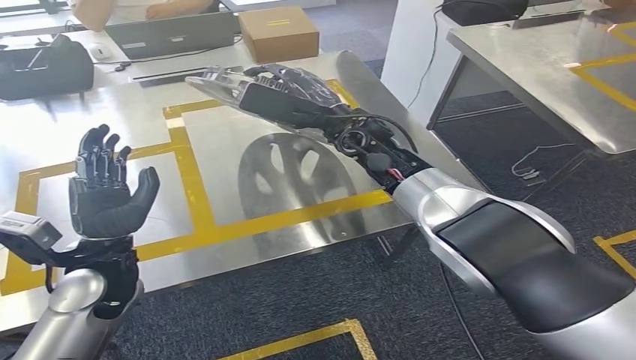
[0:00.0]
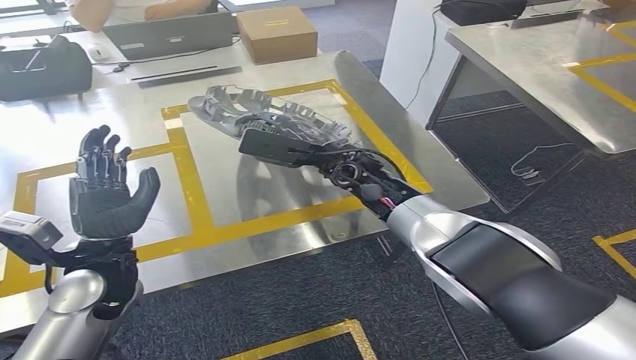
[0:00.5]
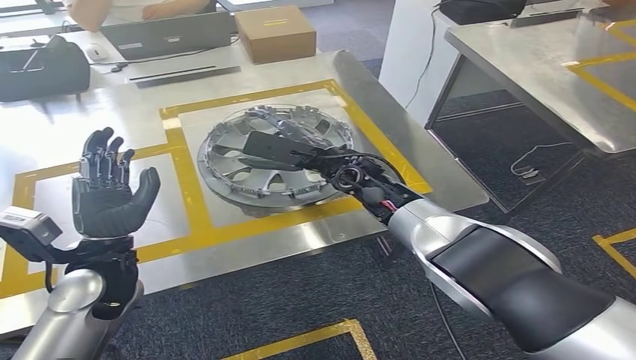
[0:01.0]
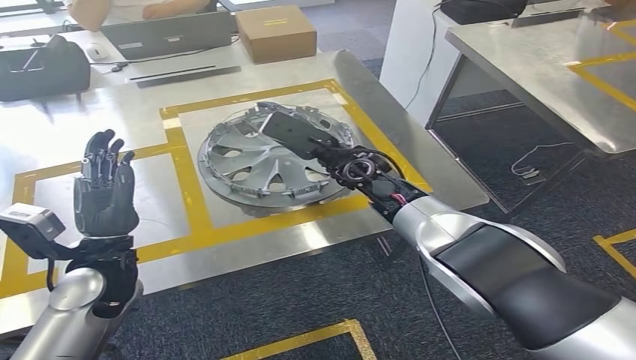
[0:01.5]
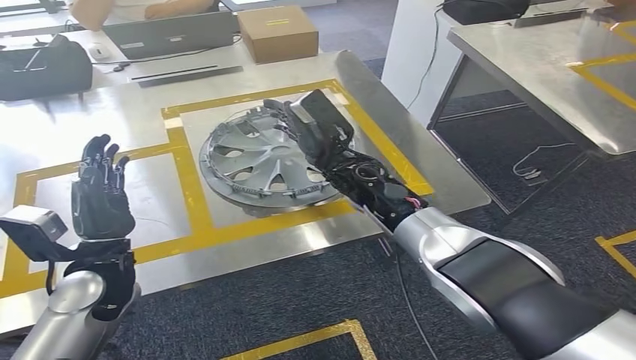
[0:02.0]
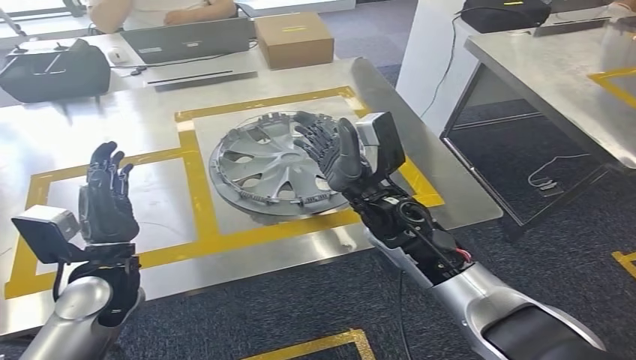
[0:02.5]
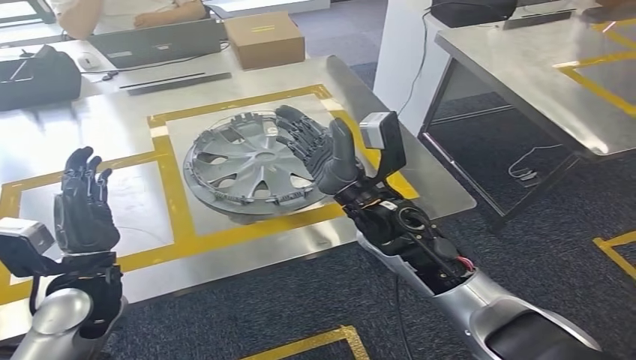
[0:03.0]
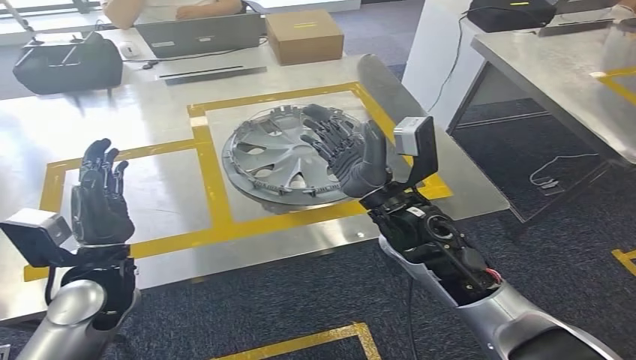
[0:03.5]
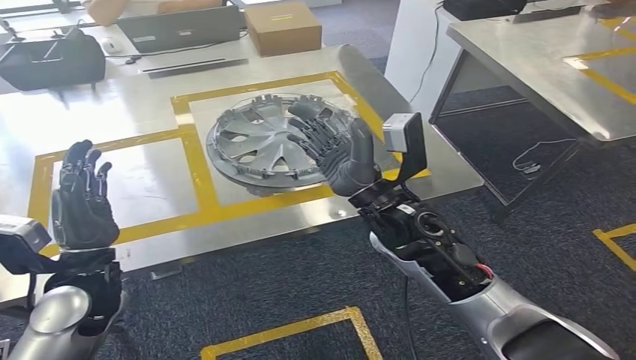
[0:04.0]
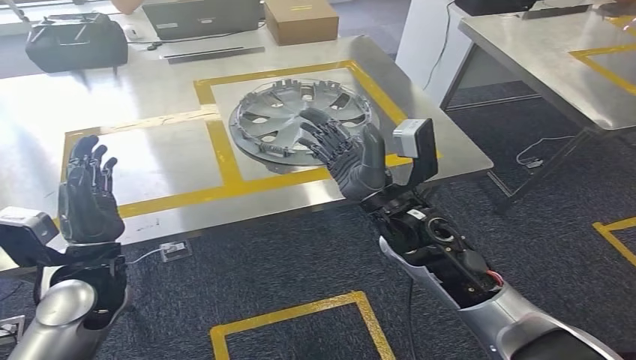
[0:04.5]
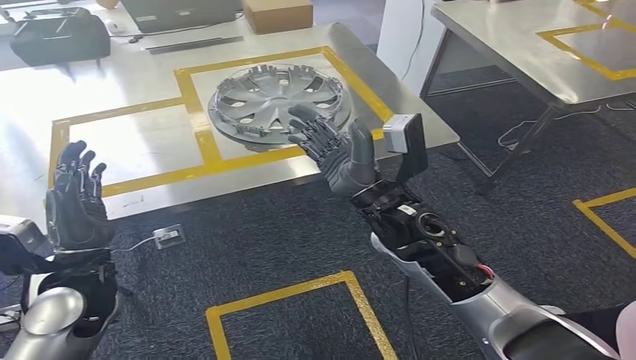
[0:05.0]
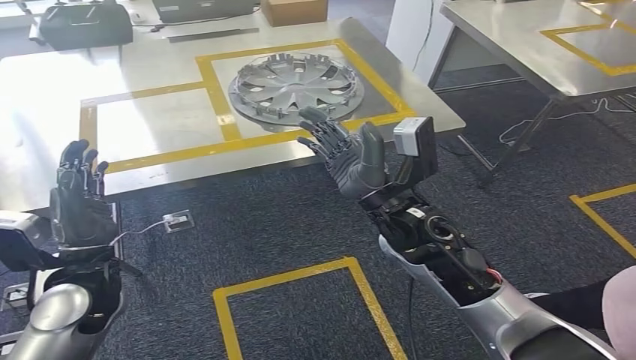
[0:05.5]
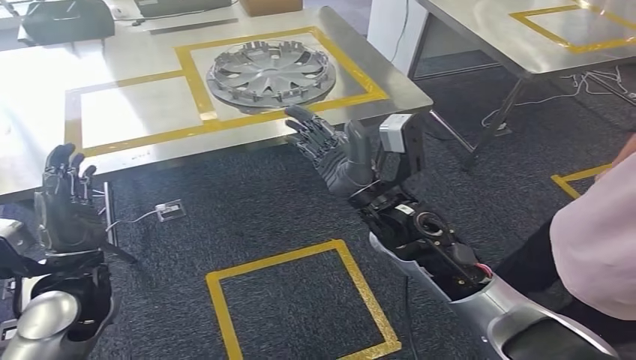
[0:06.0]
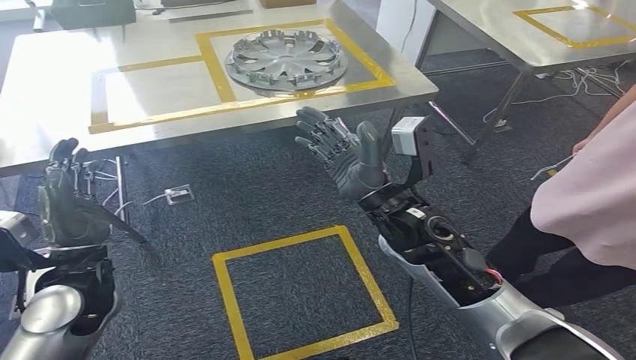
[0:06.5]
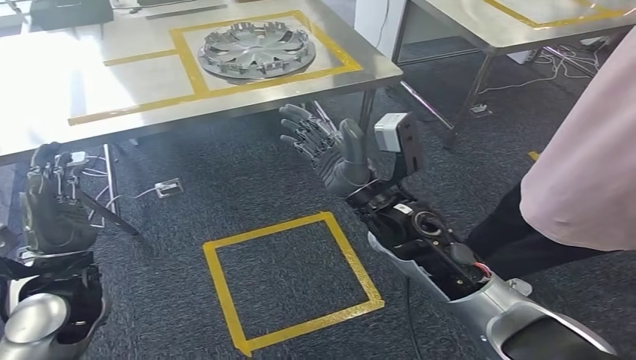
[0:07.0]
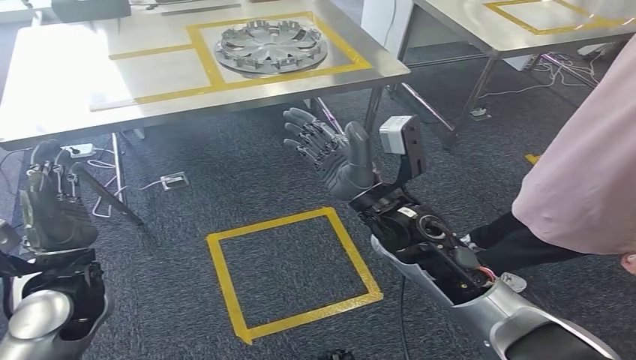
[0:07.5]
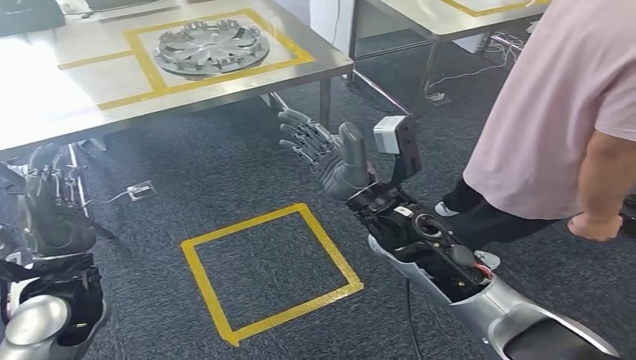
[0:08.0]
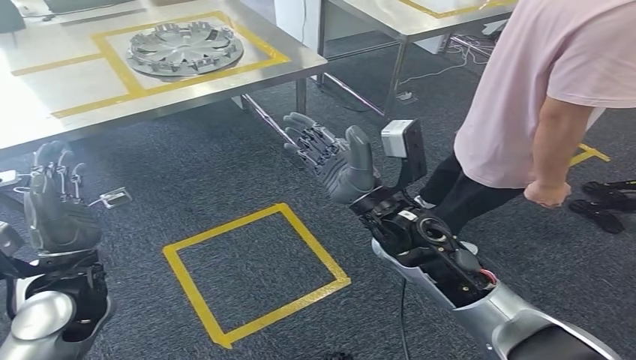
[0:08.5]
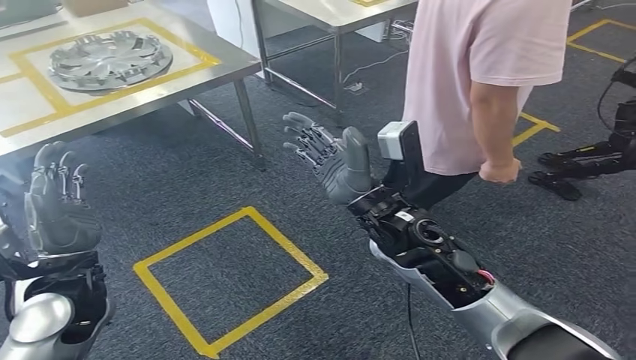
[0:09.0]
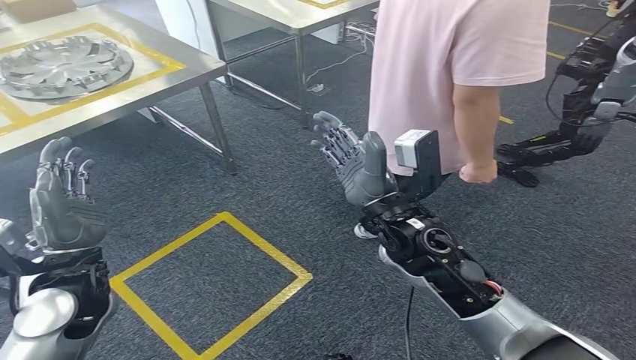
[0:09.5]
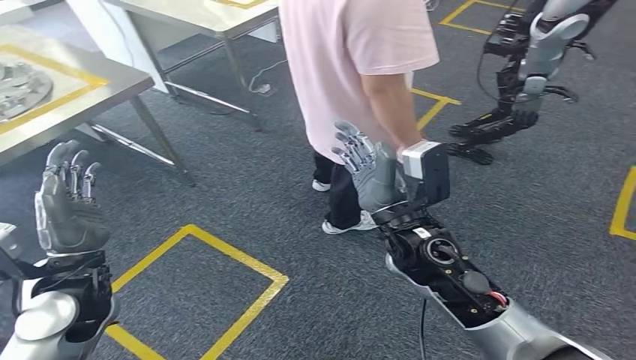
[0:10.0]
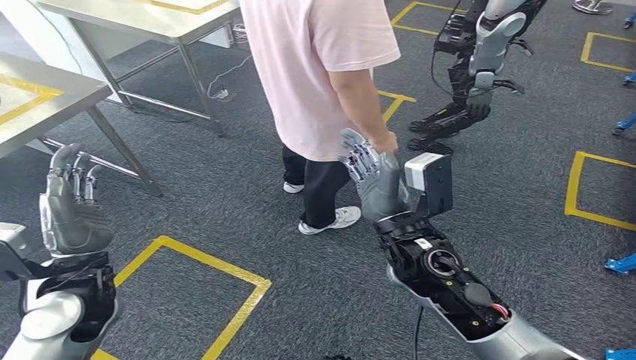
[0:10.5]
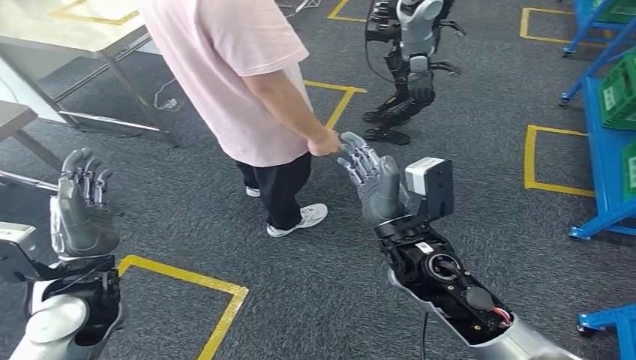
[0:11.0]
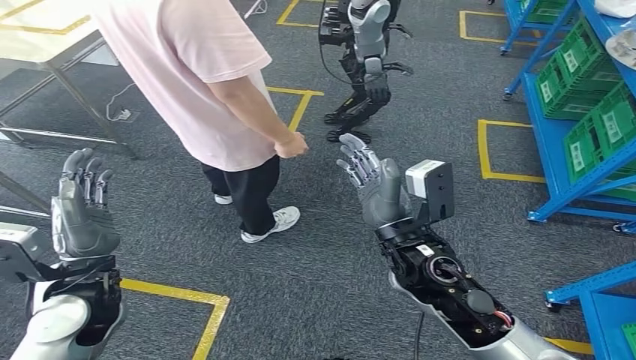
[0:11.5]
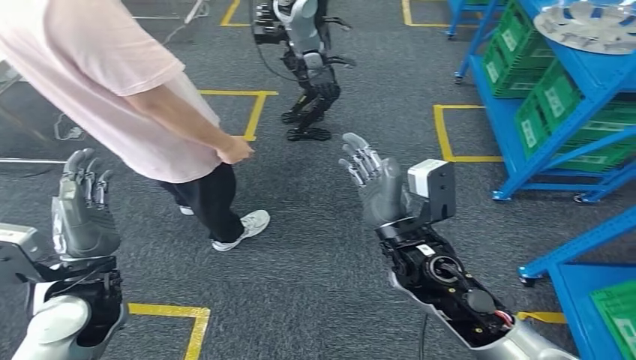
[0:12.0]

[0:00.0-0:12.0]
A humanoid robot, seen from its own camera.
Step, 0:00.0 to 0:02.0: Insert the small component into the corresponding slot on the workbench.

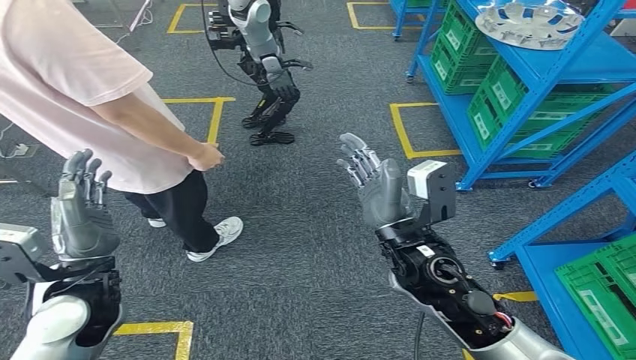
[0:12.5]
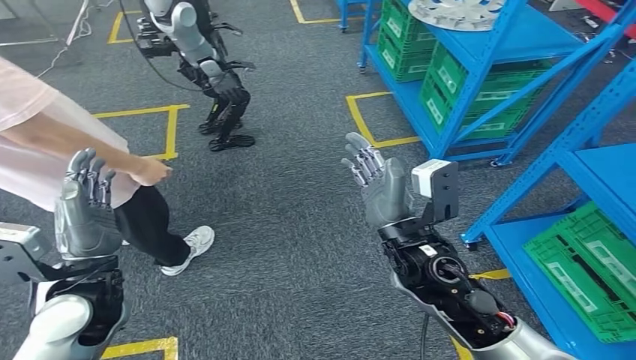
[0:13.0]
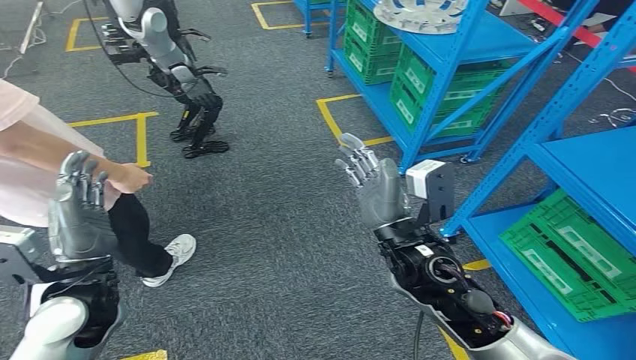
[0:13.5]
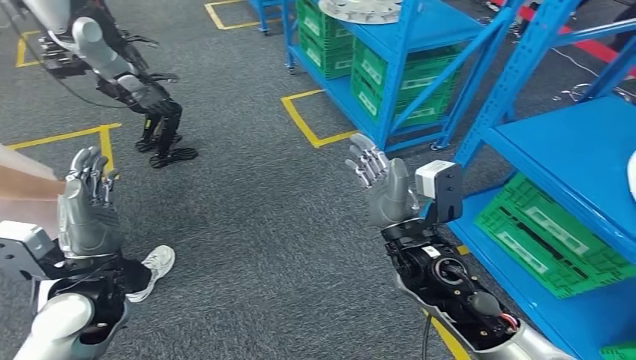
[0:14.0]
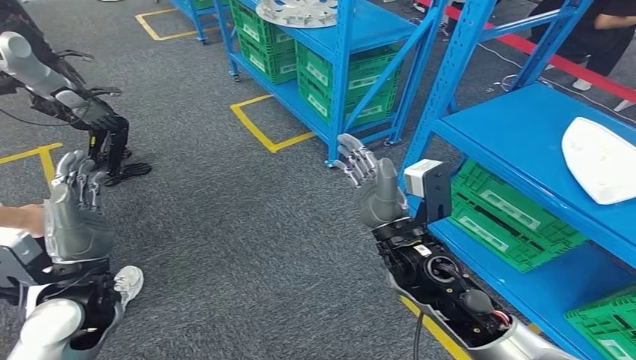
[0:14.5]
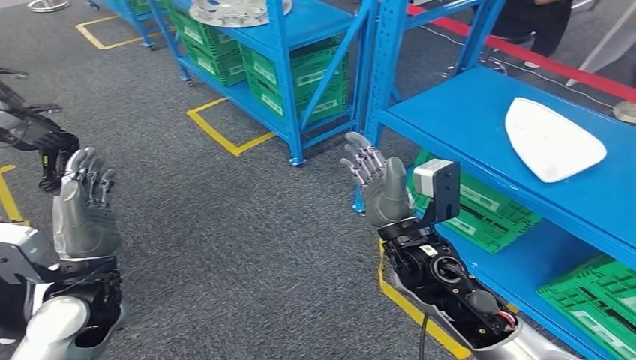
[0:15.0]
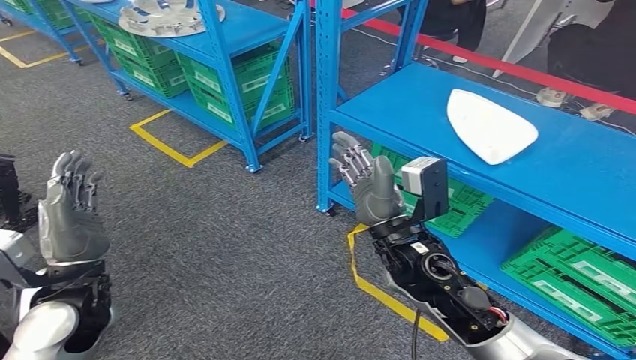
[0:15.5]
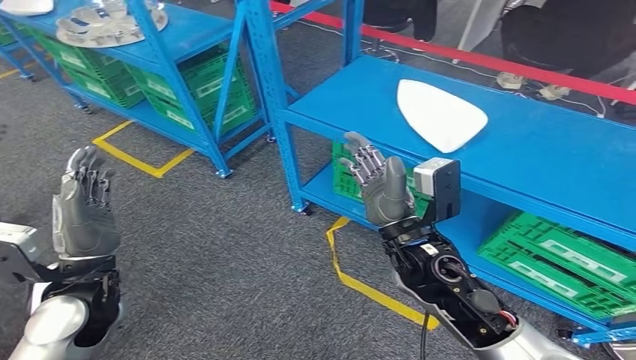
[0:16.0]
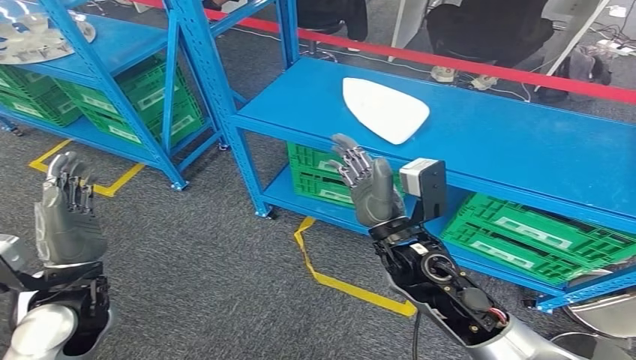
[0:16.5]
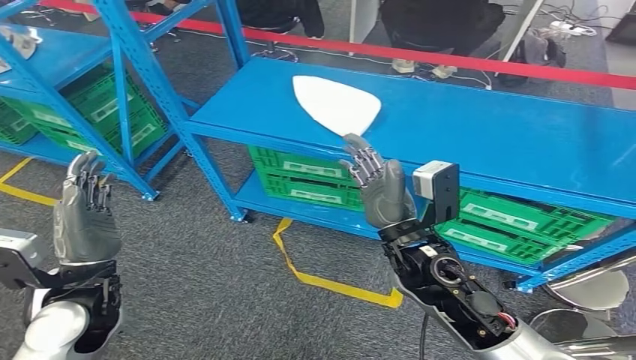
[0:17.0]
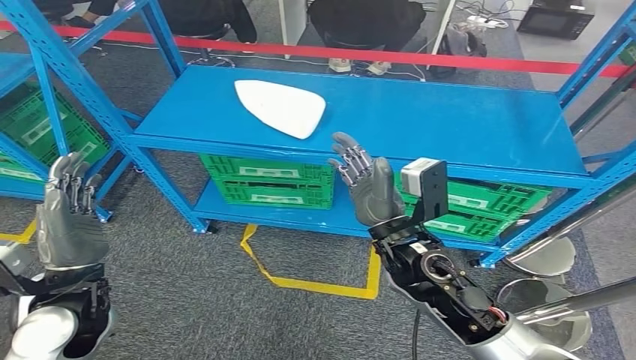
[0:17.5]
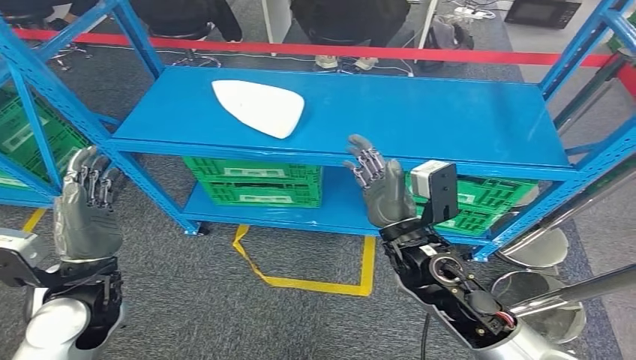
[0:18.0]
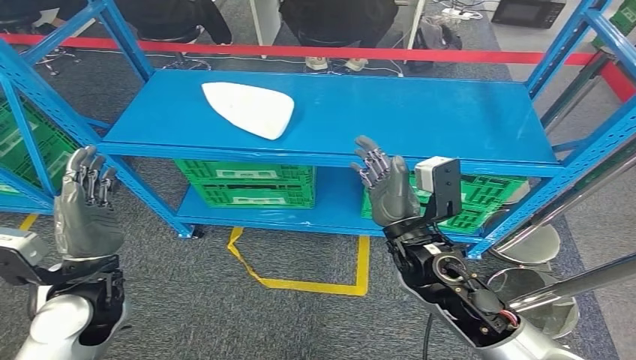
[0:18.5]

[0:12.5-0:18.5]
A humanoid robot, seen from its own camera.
Step, 0:12.5 to 0:18.5: Return to the initial position at the workbench.
